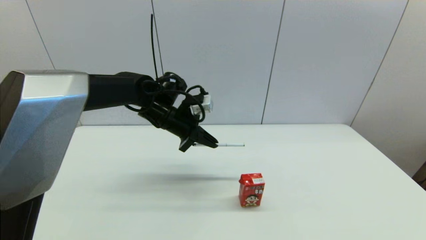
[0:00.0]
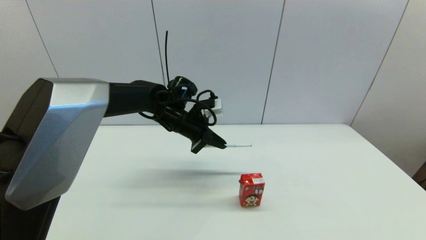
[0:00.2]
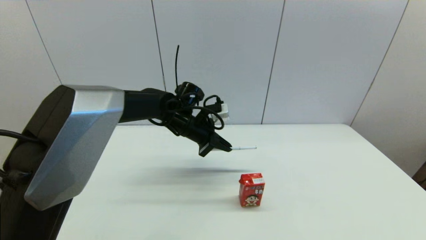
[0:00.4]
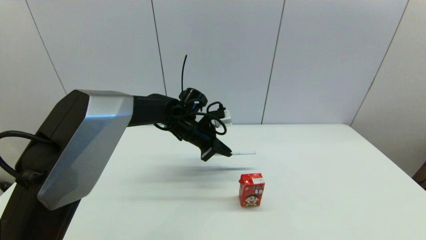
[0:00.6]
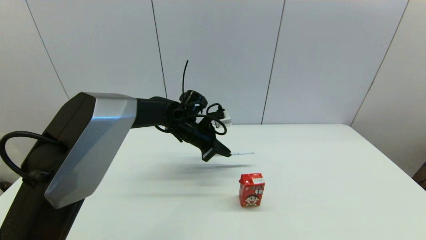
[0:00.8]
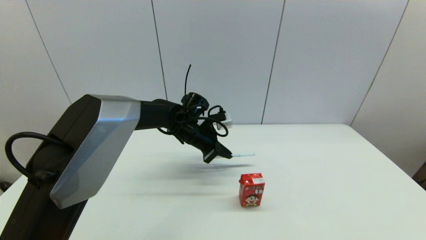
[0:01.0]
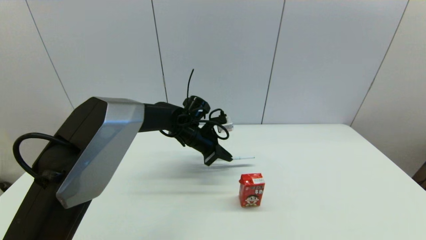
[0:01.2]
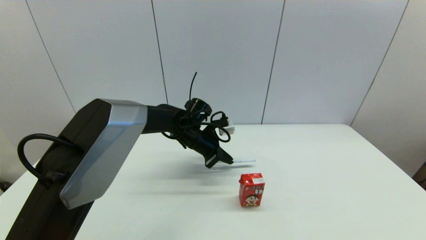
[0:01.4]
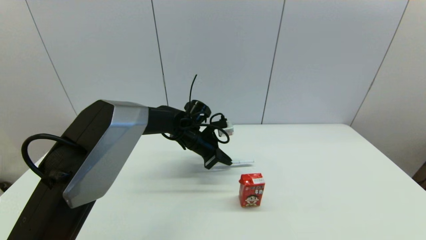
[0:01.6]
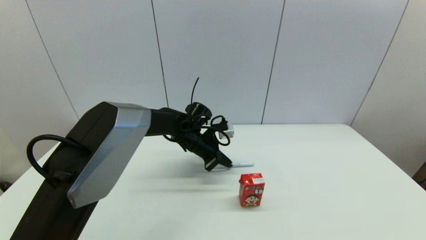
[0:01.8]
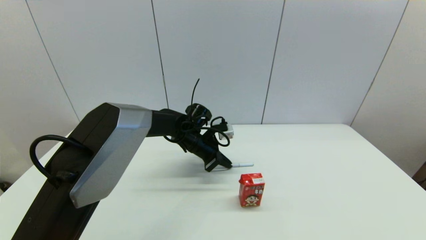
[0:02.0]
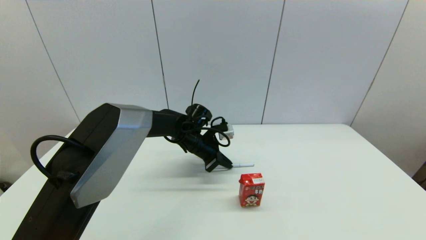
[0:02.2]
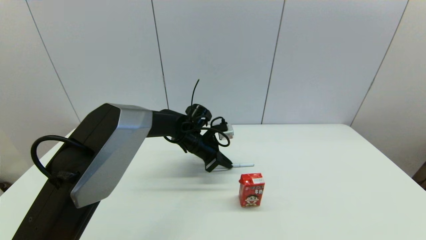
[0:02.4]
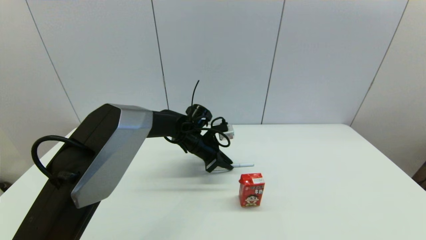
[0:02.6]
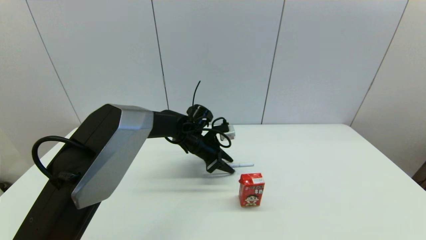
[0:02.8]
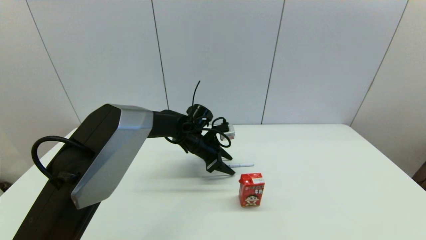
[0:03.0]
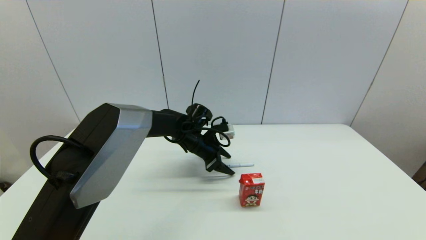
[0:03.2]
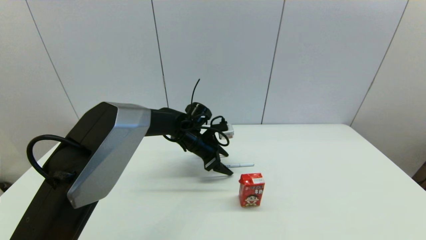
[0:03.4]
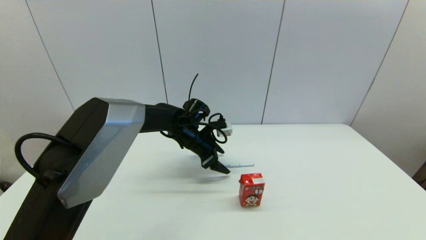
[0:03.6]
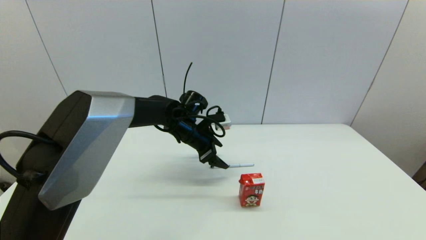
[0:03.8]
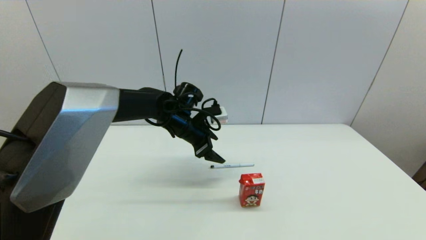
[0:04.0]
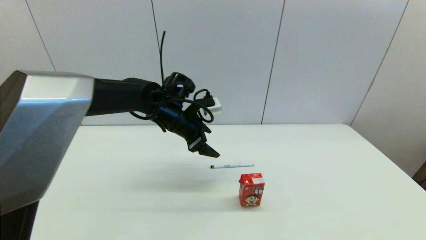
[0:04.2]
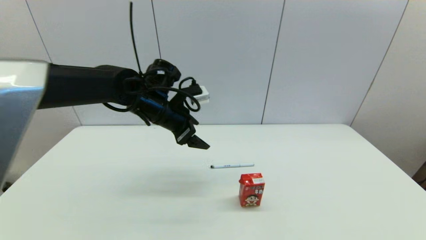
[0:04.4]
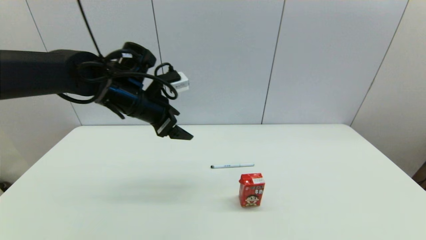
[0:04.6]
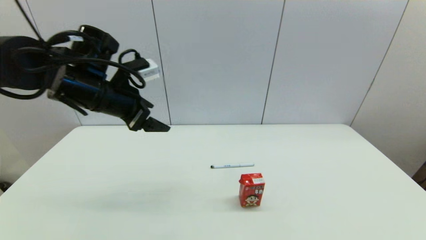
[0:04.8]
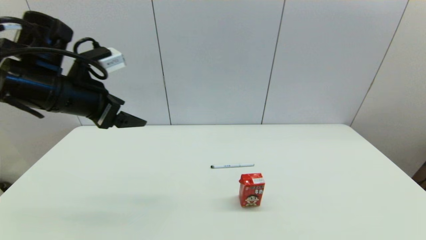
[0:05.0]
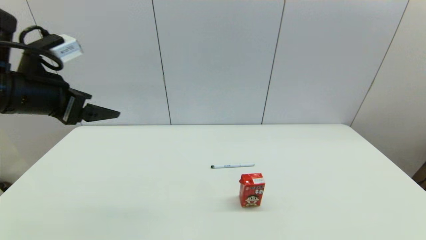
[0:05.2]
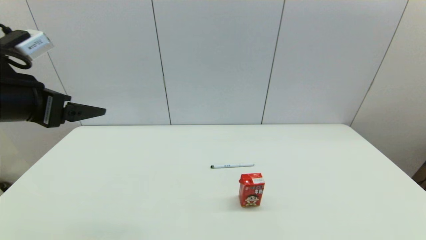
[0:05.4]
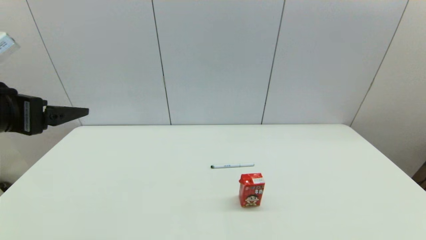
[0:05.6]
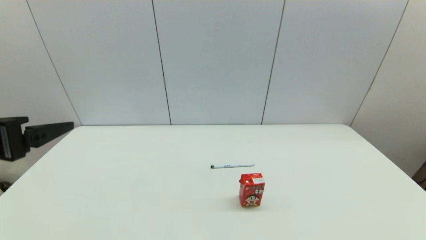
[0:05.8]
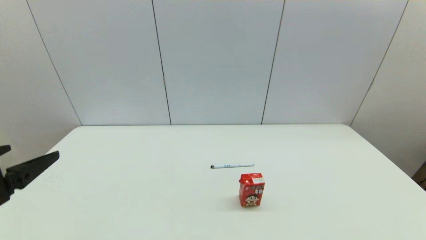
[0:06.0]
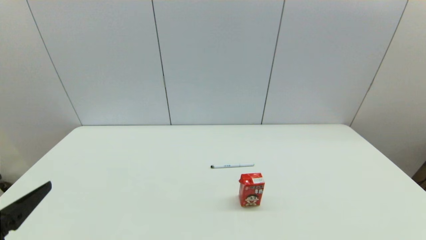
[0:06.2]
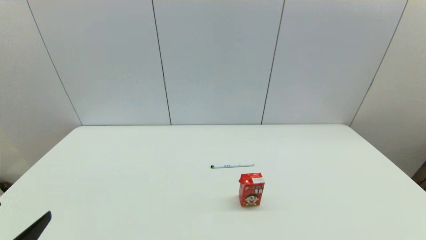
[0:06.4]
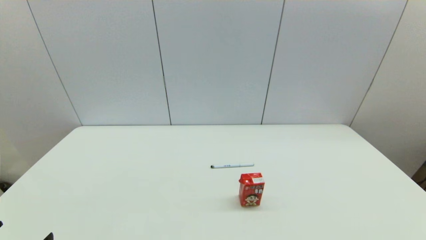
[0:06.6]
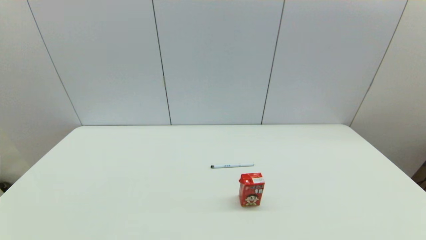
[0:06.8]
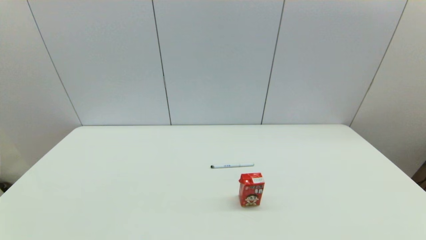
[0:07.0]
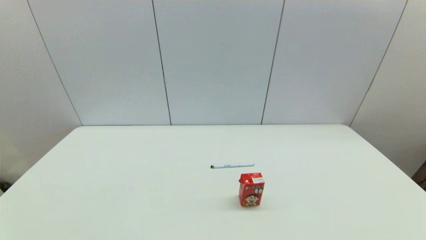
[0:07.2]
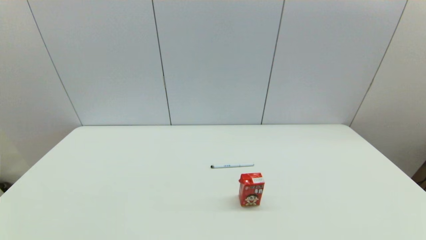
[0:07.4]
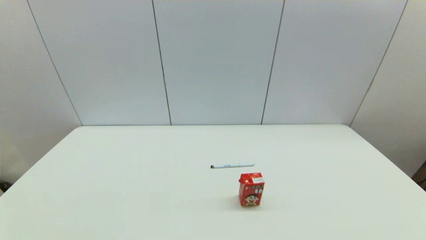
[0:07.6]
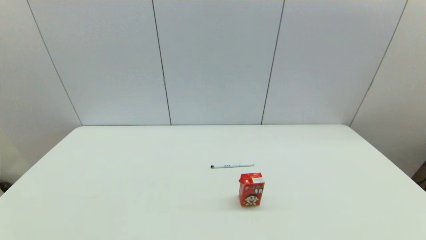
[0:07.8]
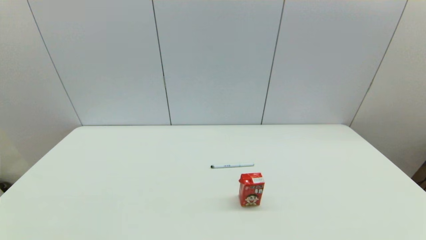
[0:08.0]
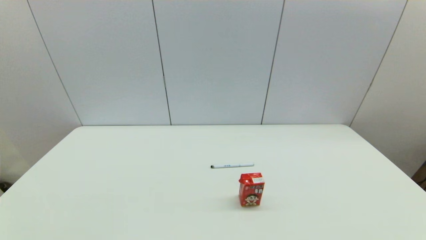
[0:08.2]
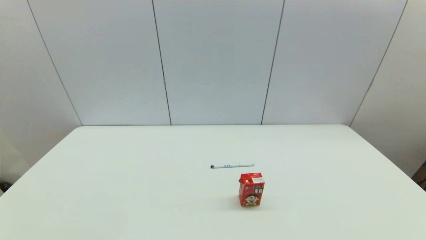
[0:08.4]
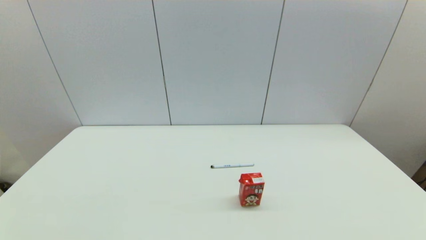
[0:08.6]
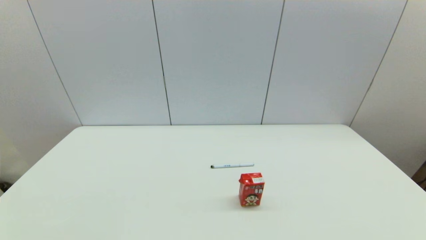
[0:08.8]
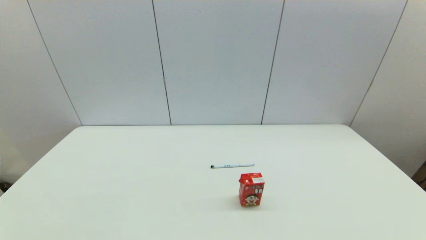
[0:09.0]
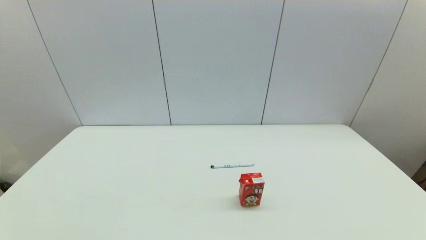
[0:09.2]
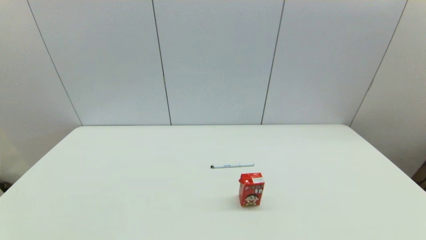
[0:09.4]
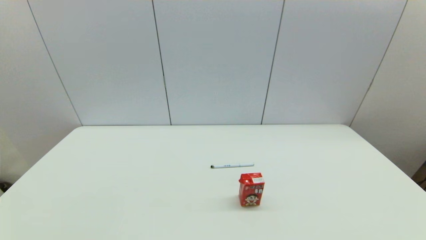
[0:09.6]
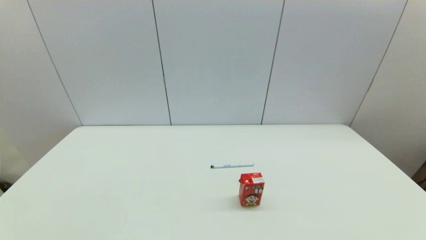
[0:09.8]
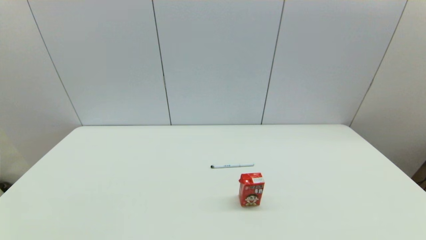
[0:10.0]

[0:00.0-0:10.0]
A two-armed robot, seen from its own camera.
Task of the whole recording: put the pen in the designated position.
Step, 0:00.0 to 0:03.0: Place the sign pen on the table with left gripper.
0:00.0 to 0:01.4: The left gripper is displaced downward and to the right by approximately 10 cm.
0:01.4 to 0:02.8: The left gripper opens its fingers.
0:02.8 to 0:04.2: The left gripper heads upward, covering about 10 cm, and opens.
0:04.2 to 0:05.8: The left gripper heads backward and to the left, covering approximately 30 cm.
0:05.8 to 0:07.2: The left gripper shifts roughly 20 cm downward and backward.
0:07.2 to 0:10.0: Both grippers stay put.
